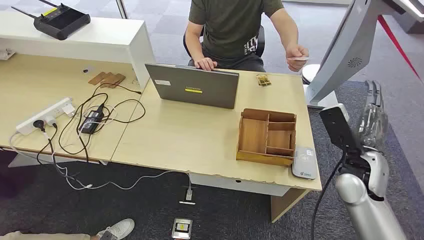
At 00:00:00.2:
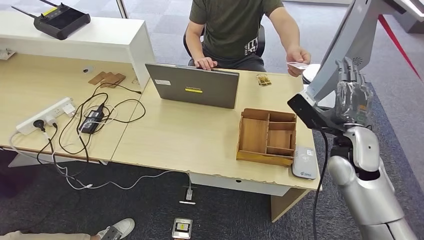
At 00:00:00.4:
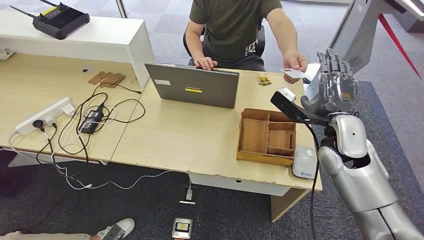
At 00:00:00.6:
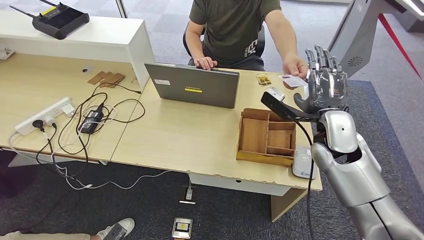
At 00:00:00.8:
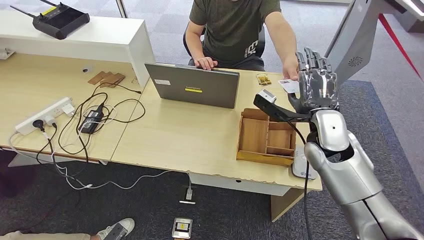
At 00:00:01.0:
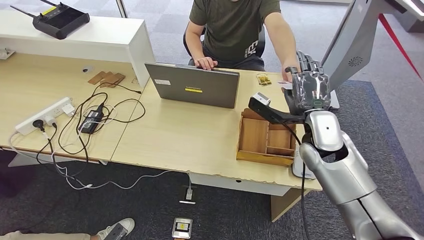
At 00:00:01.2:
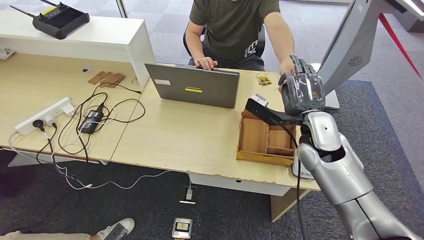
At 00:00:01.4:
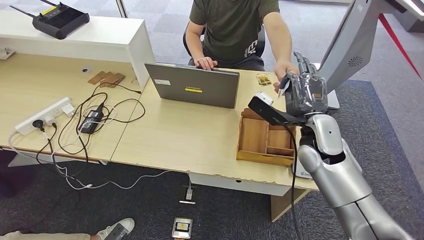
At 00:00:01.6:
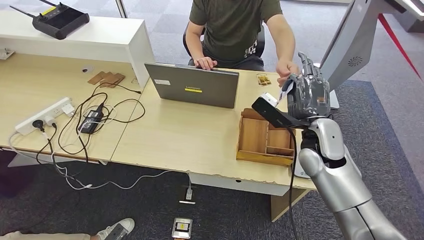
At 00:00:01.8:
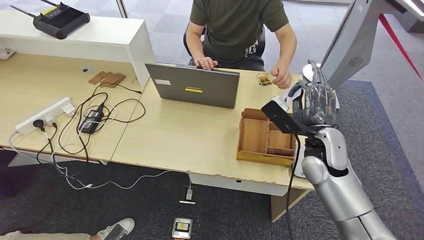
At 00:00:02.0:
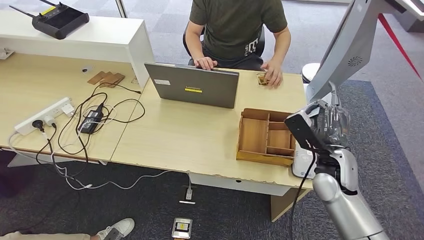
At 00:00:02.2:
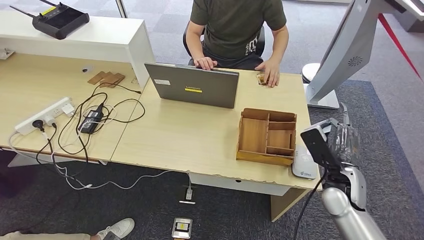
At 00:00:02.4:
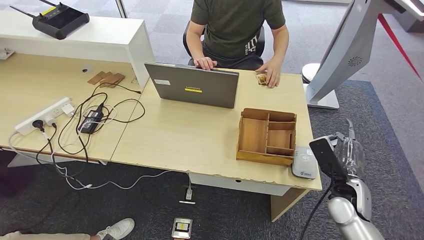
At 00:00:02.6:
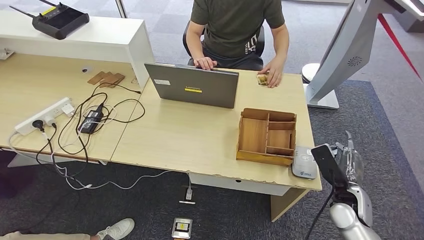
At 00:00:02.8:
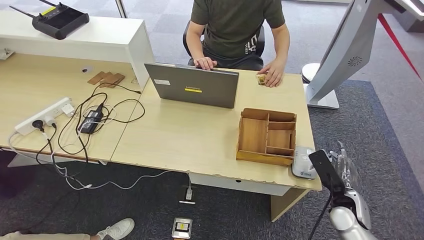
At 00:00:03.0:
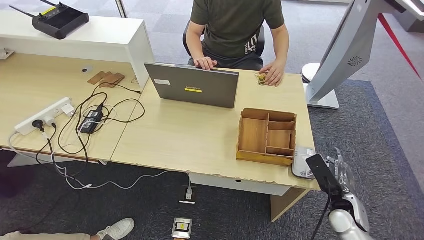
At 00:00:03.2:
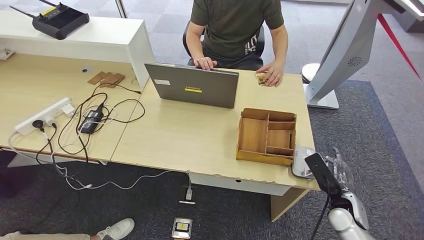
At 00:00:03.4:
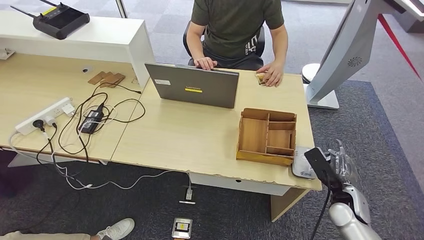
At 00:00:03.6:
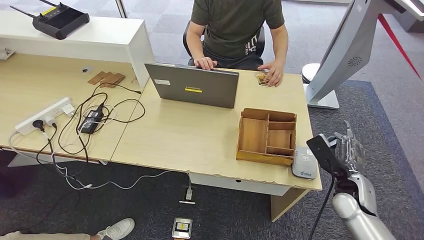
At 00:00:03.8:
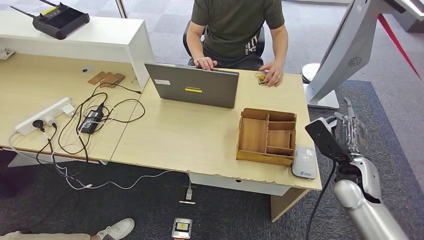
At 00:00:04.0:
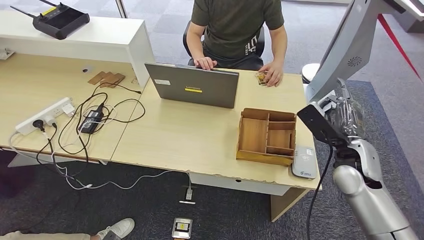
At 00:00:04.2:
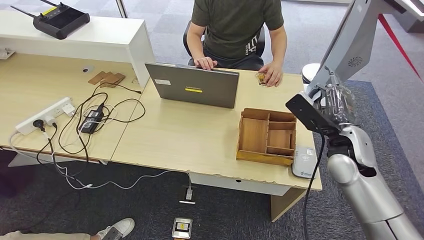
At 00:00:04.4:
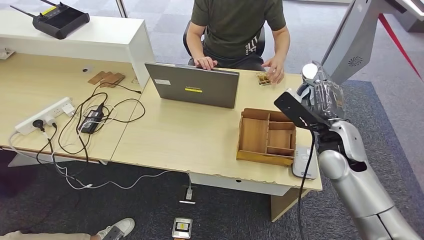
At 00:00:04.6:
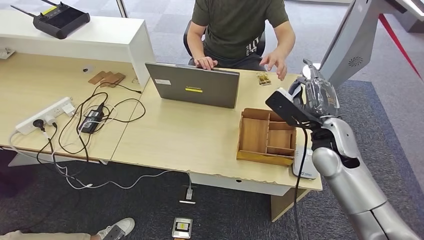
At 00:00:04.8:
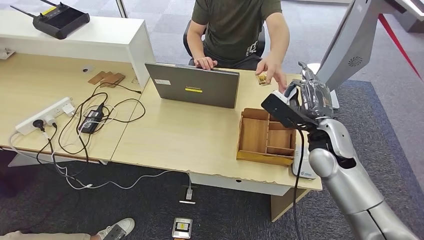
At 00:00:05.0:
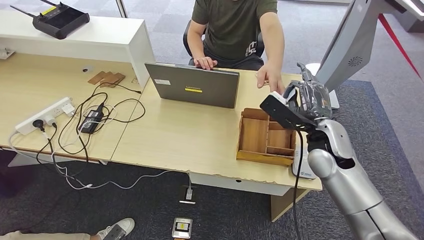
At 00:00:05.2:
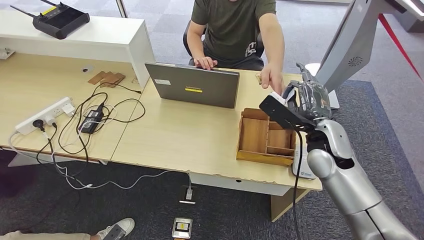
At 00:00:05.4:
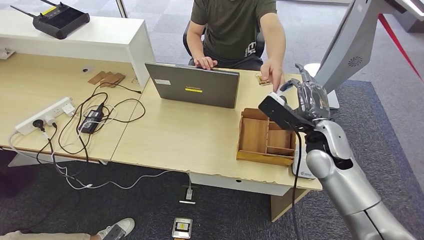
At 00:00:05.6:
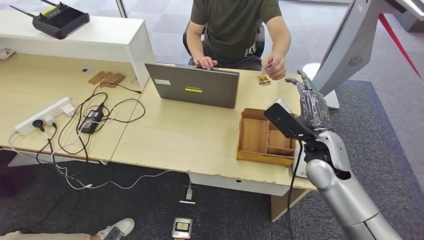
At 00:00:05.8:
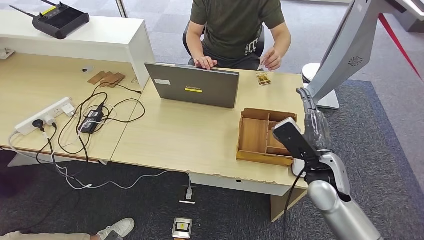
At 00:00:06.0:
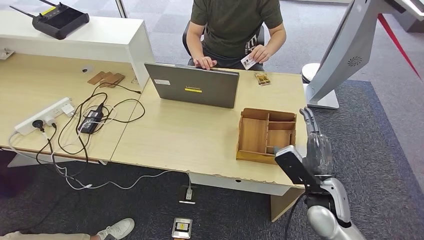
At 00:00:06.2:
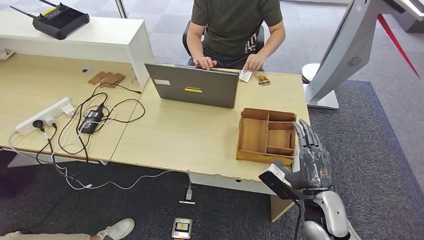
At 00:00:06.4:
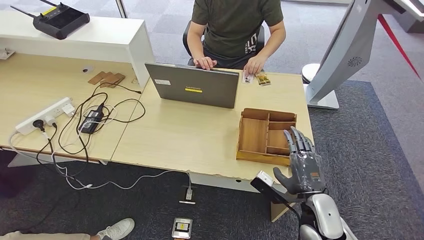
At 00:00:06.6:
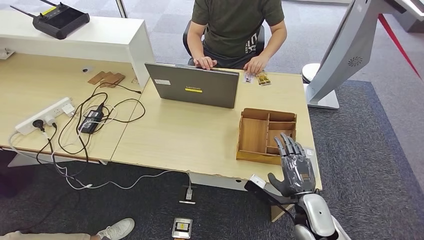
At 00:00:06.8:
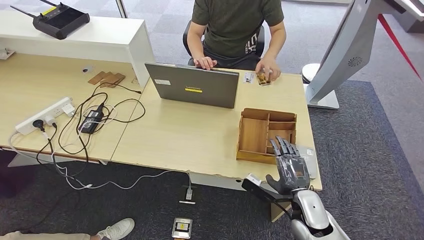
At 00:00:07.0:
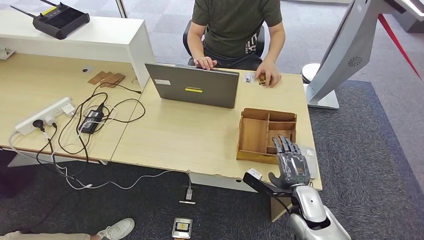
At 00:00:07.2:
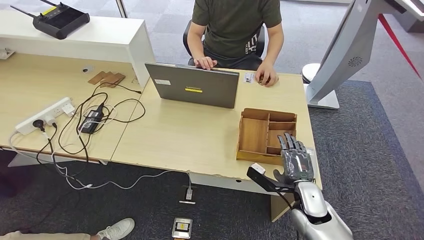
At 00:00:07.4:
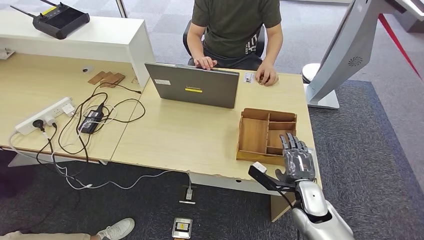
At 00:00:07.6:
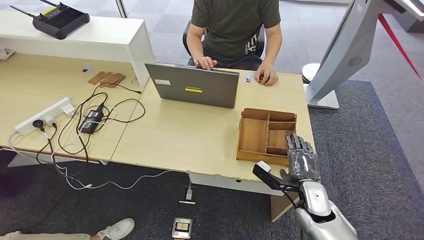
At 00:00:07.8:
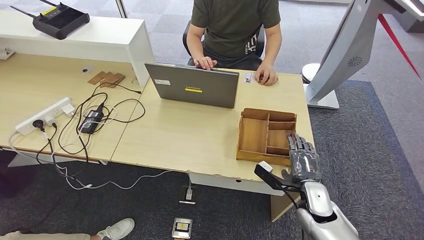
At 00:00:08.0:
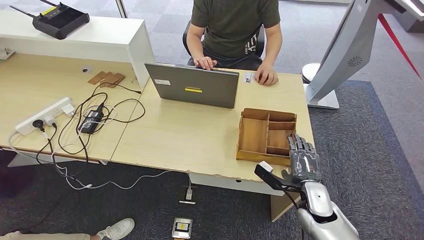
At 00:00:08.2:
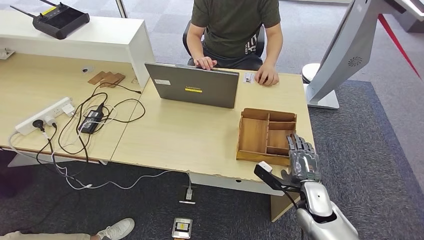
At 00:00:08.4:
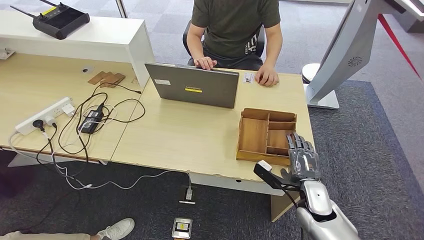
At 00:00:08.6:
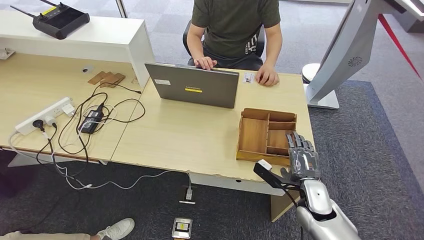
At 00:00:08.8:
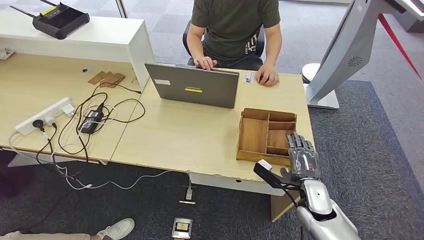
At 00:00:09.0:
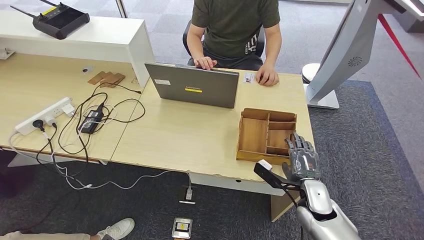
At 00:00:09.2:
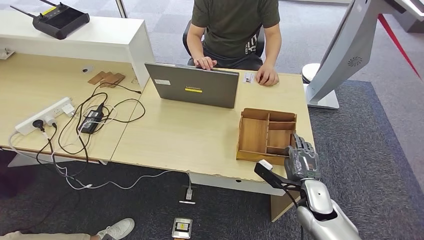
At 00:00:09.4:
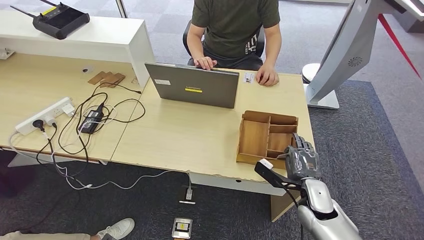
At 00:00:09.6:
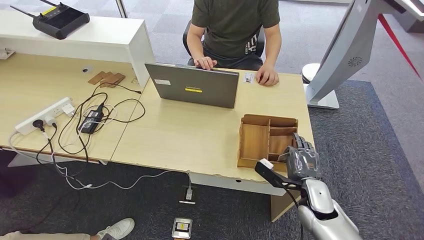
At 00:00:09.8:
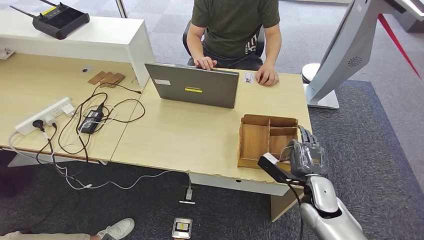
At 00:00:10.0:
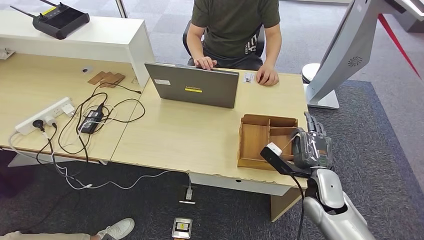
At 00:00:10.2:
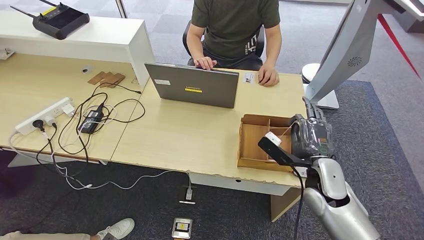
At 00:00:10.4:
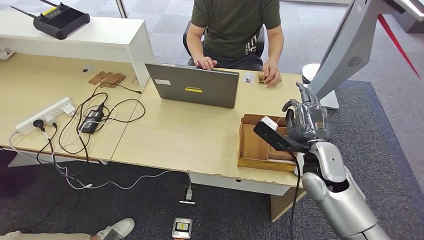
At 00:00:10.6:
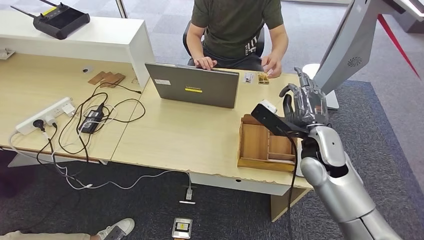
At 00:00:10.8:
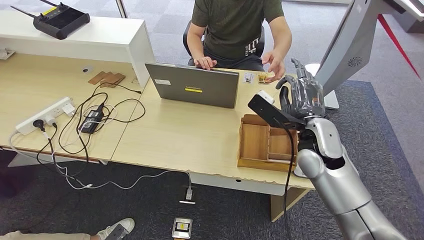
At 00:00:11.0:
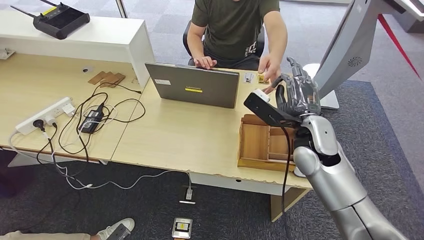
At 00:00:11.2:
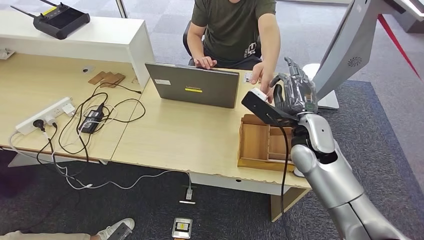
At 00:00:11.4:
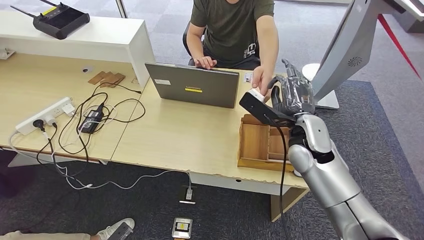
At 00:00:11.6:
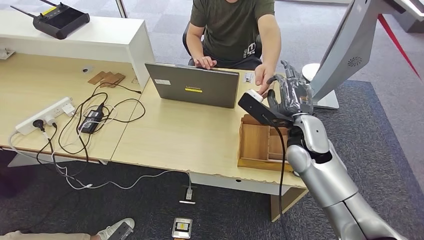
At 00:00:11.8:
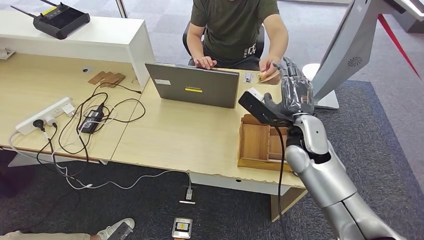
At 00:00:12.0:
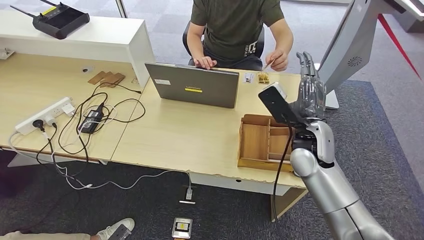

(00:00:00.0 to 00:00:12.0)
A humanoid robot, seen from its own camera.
Step, 00:00:00.0 - 00:00:02.2: Take the ID card from the person's hand.
Step, 00:00:02.6 - 00:00:04.0: Place the ID card on the card reader.
Step, 00:00:04.2 - 00:00:07.6: Hand the ID card to the person.
00:00:01.6 - 00:00:03.0: The right hand goes some 25 cm downward, to the right and backward.
00:00:03.0 - 00:00:04.4: The right hand moves upward, to the left and forward, about 20 cm.
00:00:04.4 - 00:00:06.0: The right hand travels backward and downward by about 15 cm.
00:00:06.0 - 00:00:07.6: The right hand travels downward by some 10 cm.
00:00:07.6 - 00:00:09.0: The two hands keep their place.
00:00:09.0 - 00:00:10.4: The right hand goes roughly 10 cm upward.
00:00:10.4 - 00:00:12.0: The right hand moves approximately 5 cm.

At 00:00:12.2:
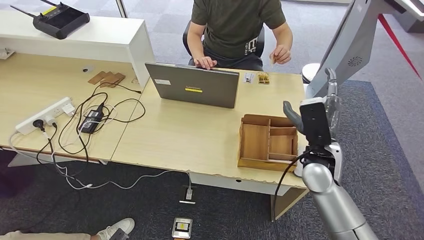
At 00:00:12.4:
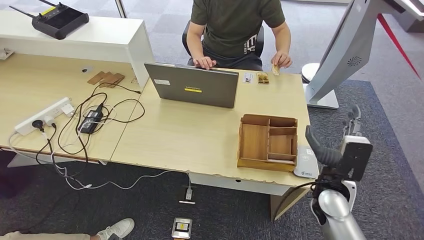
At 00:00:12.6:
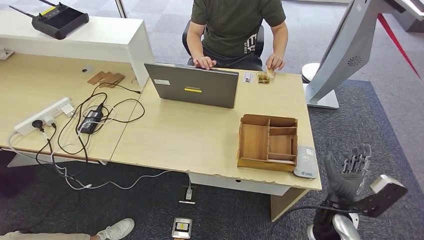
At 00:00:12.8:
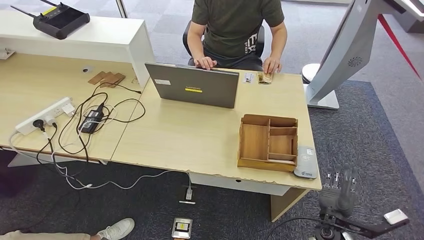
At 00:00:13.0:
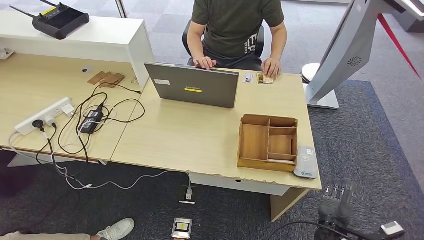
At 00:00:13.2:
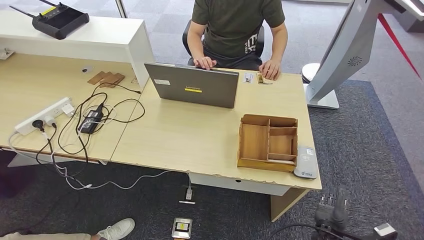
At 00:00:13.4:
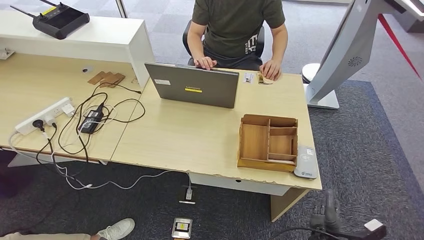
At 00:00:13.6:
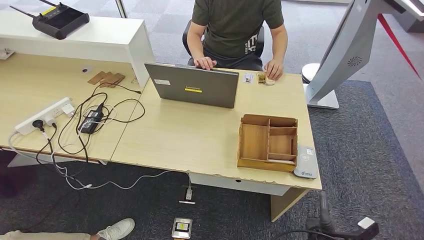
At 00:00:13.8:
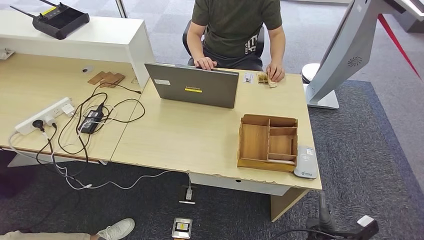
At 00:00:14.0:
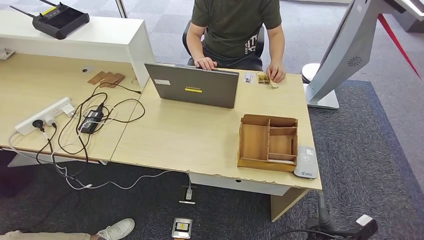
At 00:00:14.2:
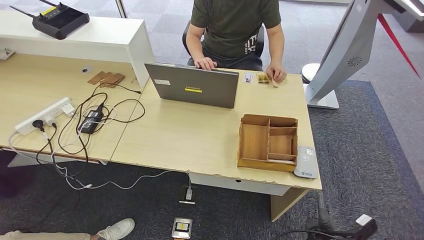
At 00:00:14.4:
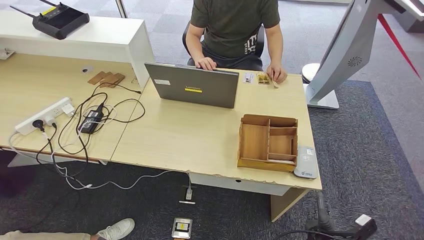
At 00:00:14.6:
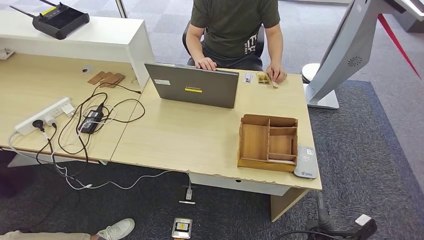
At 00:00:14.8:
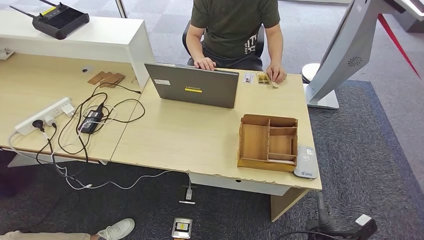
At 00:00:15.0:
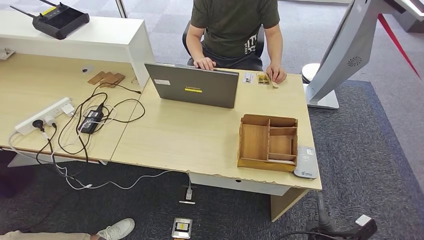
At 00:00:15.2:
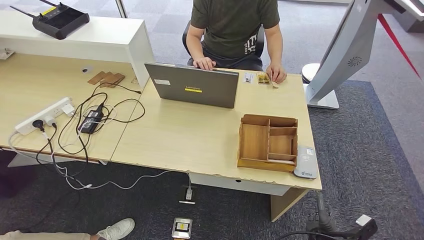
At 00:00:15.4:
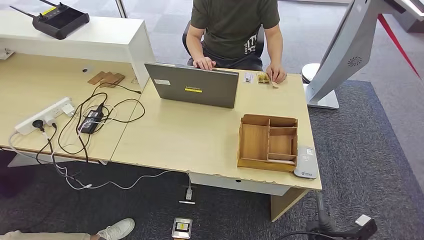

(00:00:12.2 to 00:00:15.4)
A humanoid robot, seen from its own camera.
Step, 00:00:13.2 - 00:00:15.2: Hand the room key to the person.
00:00:12.2 - 00:00:13.8: The right hand travels downward and backward by approximately 25 cm.
00:00:13.8 - 00:00:15.4: The two hands keep their place.
